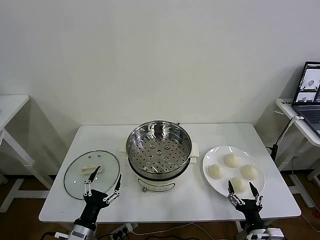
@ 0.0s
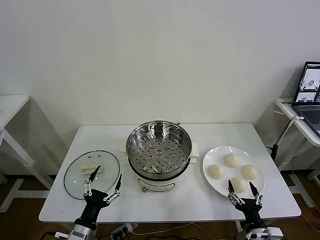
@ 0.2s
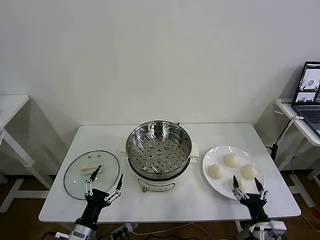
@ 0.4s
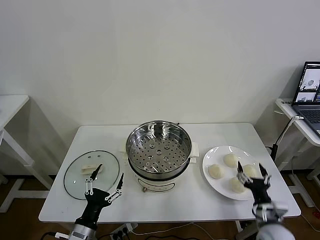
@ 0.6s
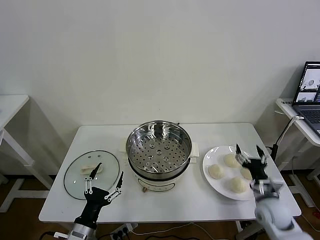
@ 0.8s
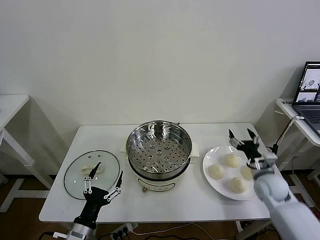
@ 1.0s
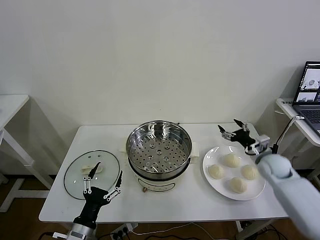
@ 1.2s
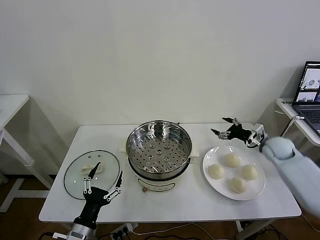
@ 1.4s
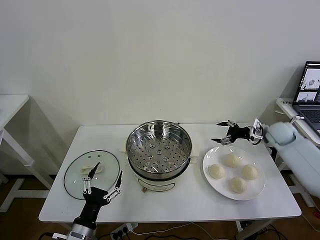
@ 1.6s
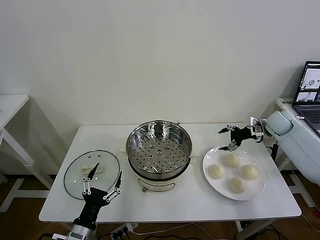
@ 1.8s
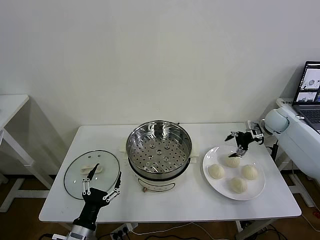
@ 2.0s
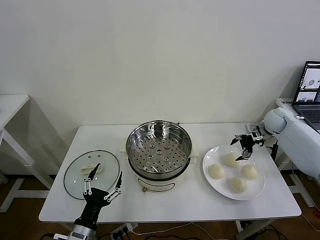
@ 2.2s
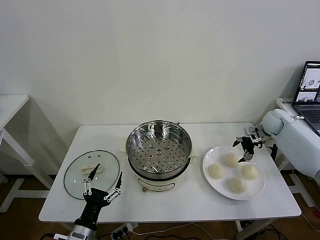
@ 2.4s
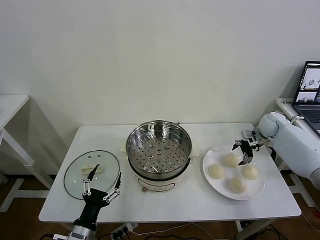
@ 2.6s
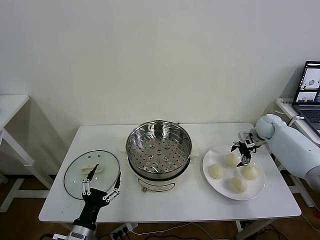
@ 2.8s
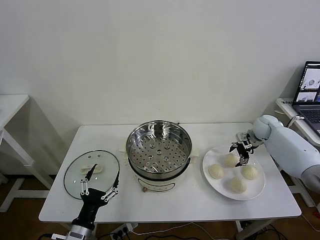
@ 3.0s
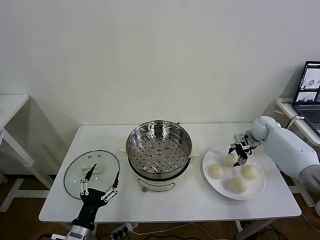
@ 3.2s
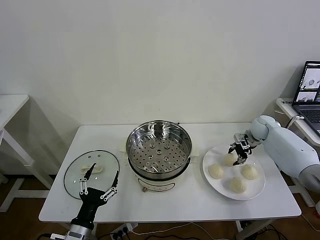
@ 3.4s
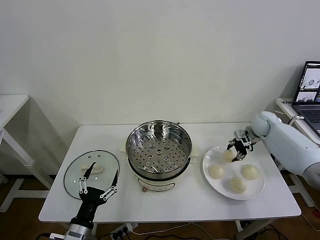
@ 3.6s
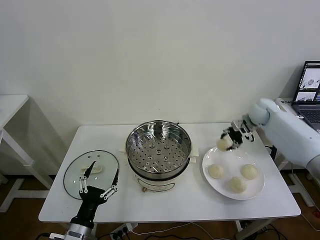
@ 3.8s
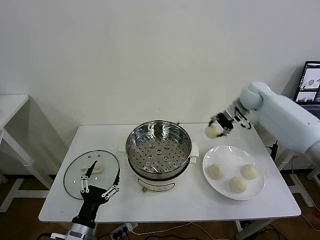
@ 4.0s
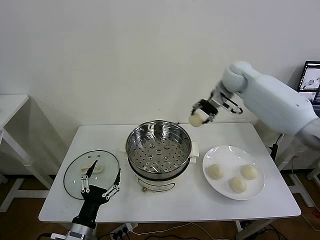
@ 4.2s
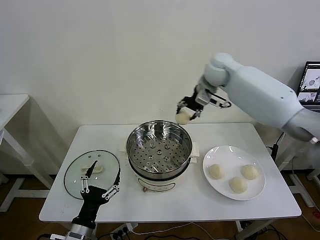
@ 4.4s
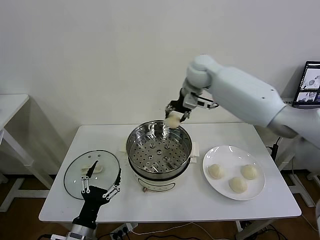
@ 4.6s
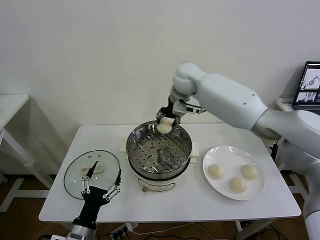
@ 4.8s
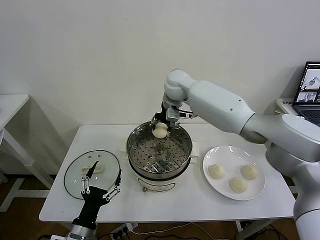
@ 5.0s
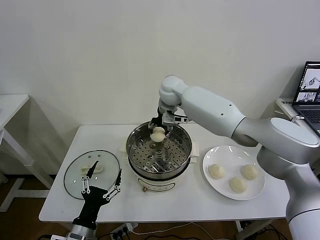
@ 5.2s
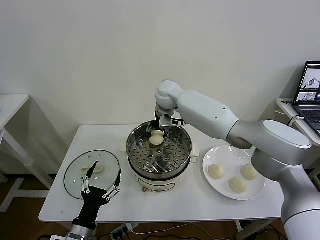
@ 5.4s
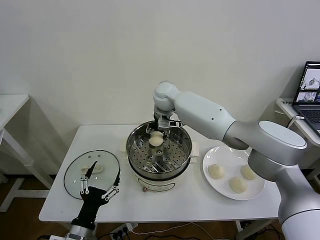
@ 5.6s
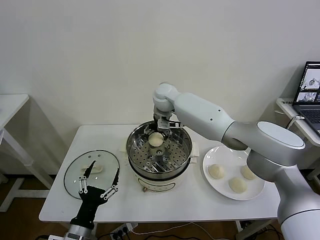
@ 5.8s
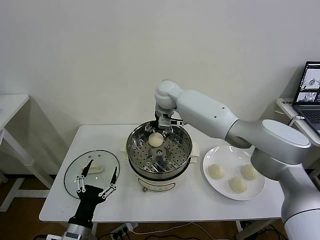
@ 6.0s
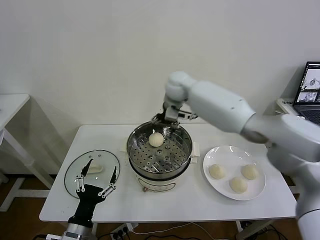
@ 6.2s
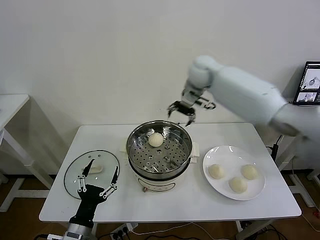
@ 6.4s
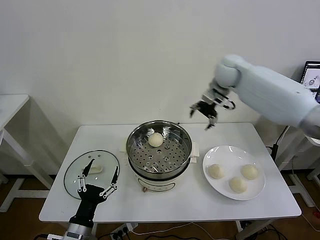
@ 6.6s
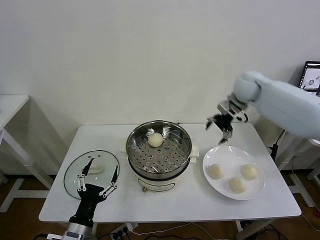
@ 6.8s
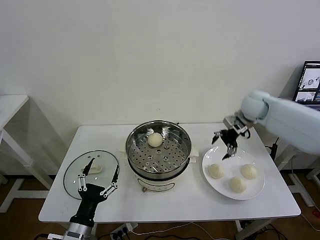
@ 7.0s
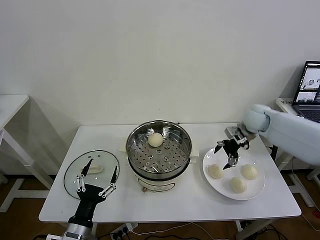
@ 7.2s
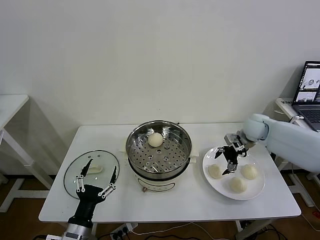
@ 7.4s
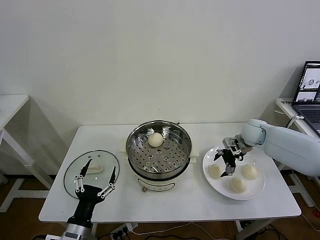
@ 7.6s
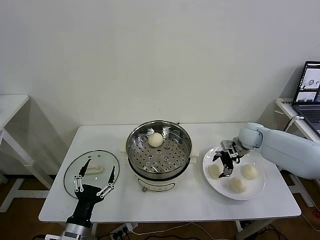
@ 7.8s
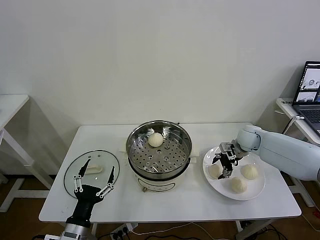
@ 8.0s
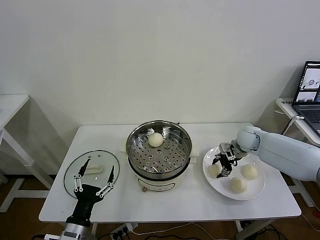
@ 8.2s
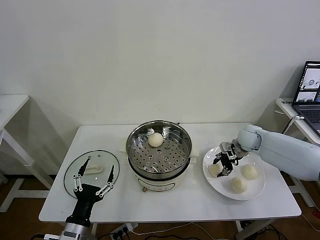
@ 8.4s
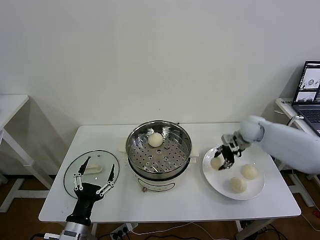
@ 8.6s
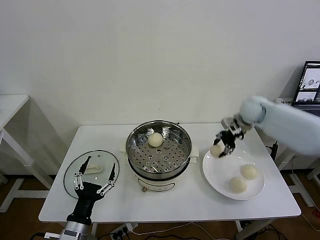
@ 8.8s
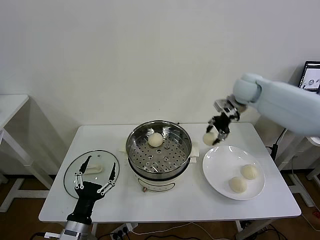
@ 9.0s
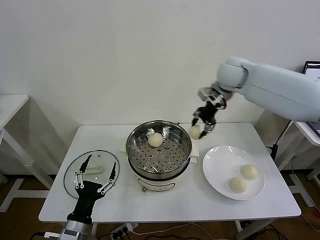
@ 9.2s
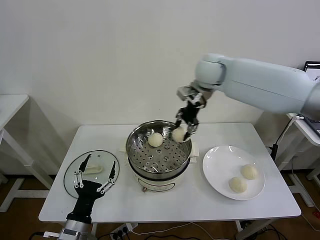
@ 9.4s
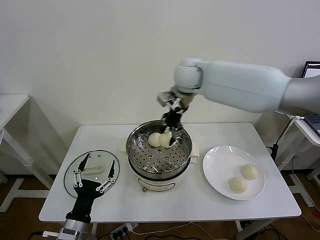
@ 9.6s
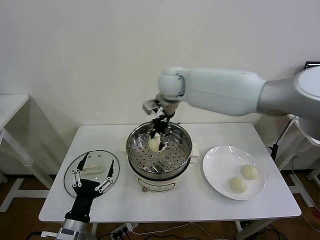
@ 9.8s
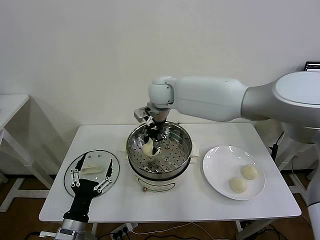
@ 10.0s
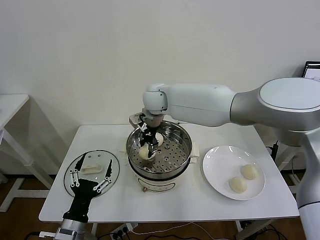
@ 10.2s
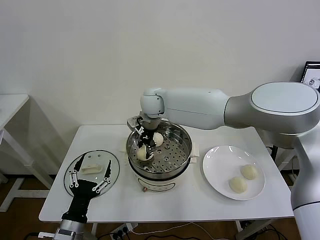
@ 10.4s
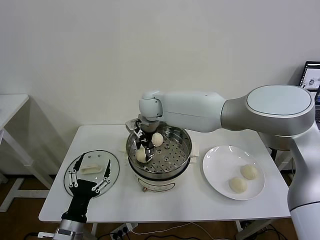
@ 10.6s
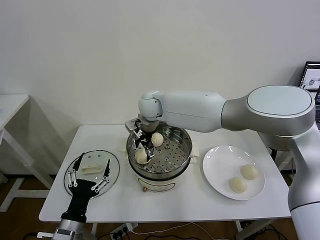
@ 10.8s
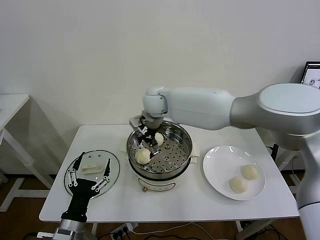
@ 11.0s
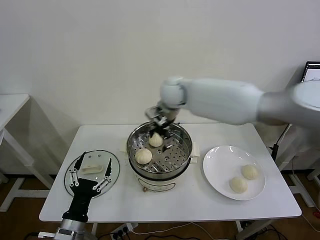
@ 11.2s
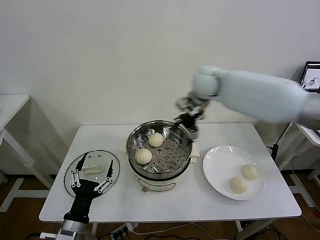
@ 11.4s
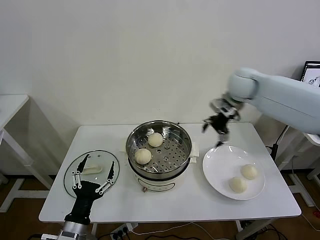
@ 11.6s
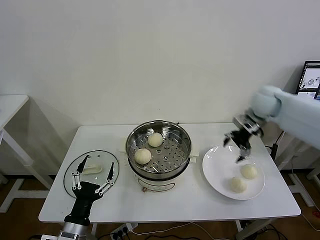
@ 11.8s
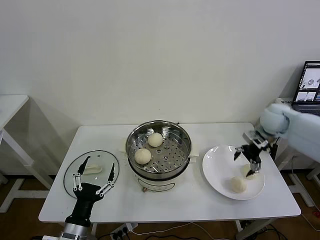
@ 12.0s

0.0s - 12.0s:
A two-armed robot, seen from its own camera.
Task of the whole recording: take steamed baozi put them in steamer then cover it.
Step, 0.0s - 3.2s: Grasp the baozi in the plate with right gripper.
Step, 3.4s - 5.8s: Place the baozi on the steamer with right gripper.
Step, 6.0s - 8.2s: Grasp the baozi in the plate with right gripper.
Step, 8.4s - 10.8s: Place the baozi on the steamer with right gripper.
1.6s - 3.0s: The right gripper changes place by some 5 cm.
3.0s - 4.4s: The right gripper travels to the left and upward by some 35 cm, and closes up.
4.4s - 6.0s: The right gripper shifts roughly 15 cm to the left and downward, and opens its fingers.
6.0s - 7.6s: The right gripper heads to the right and downward, covering roughly 35 cm.
7.6s - 9.0s: The right gripper heads upward and to the left, covering roughly 20 cm, and closes up.
9.0s - 10.4s: The right gripper goes roughly 30 cm to the left.
10.4s - 12.0s: The right gripper heads to the right, covering approximately 40 cm, and opens up.

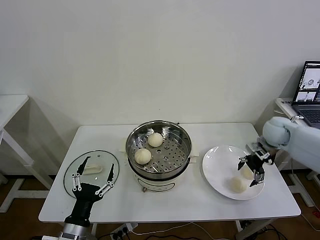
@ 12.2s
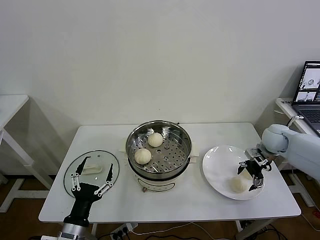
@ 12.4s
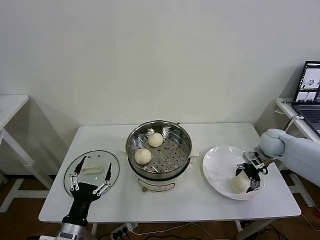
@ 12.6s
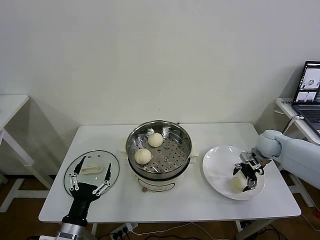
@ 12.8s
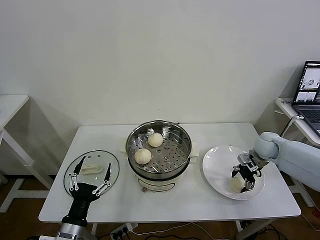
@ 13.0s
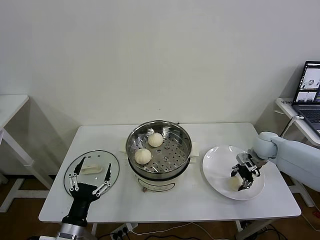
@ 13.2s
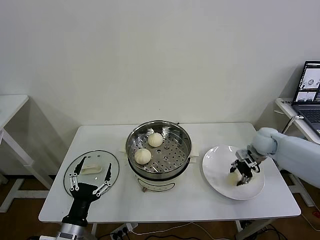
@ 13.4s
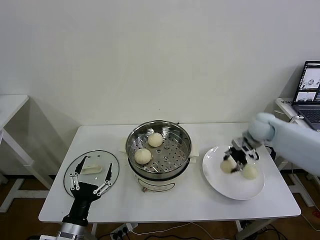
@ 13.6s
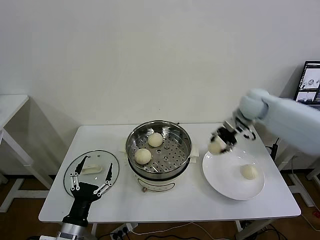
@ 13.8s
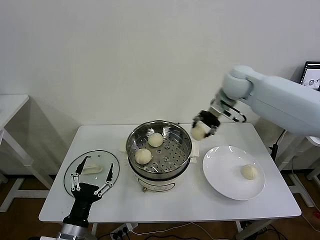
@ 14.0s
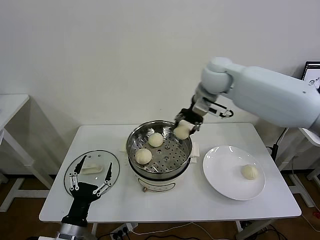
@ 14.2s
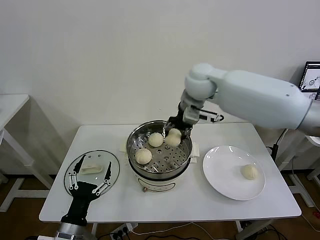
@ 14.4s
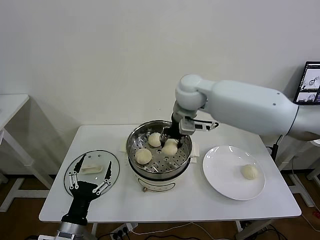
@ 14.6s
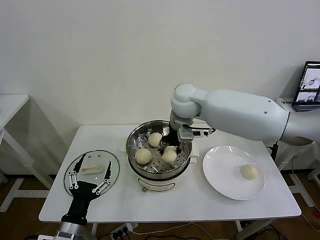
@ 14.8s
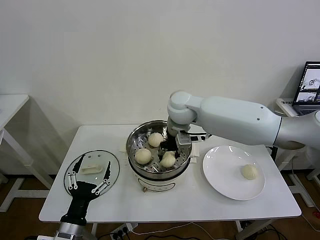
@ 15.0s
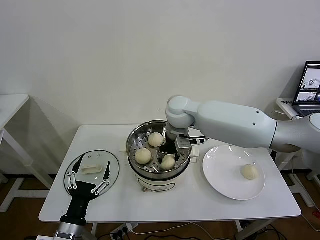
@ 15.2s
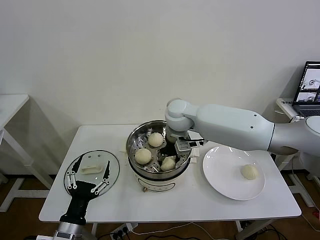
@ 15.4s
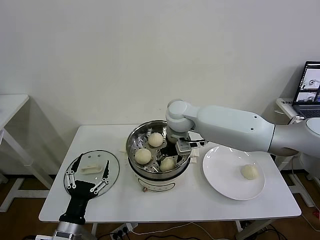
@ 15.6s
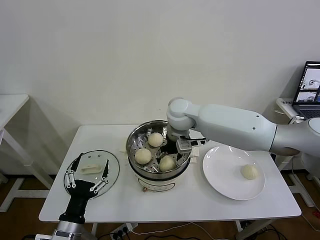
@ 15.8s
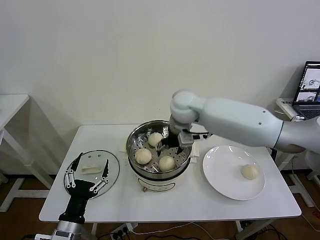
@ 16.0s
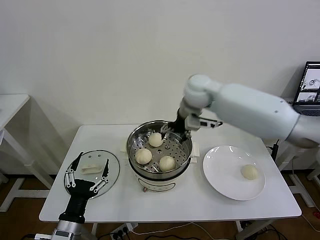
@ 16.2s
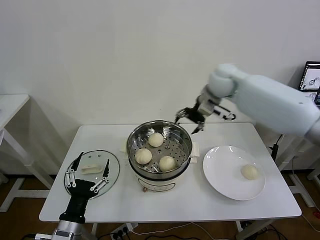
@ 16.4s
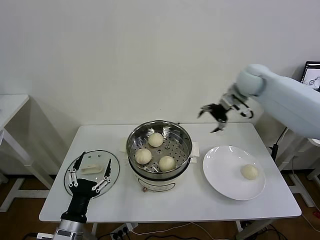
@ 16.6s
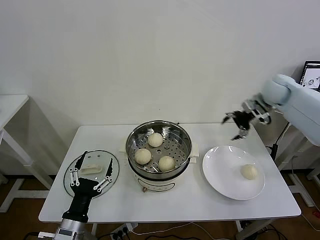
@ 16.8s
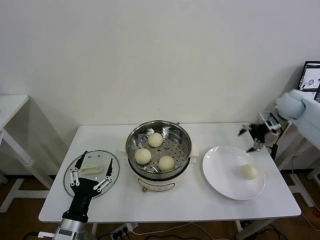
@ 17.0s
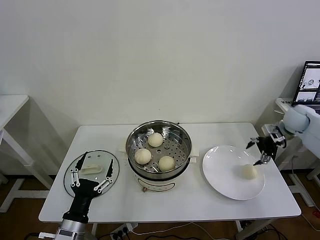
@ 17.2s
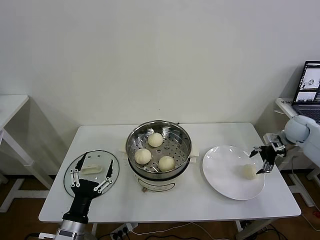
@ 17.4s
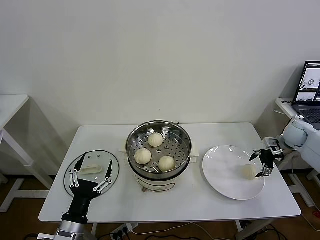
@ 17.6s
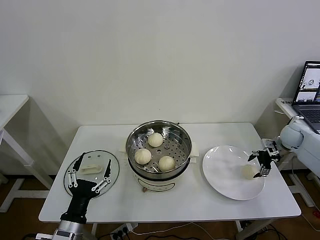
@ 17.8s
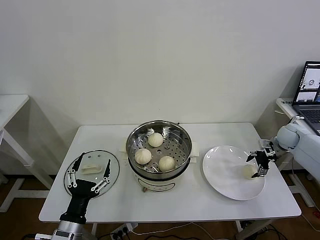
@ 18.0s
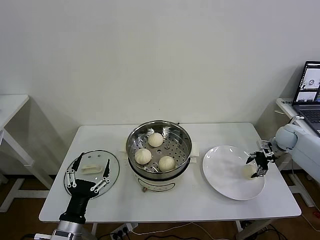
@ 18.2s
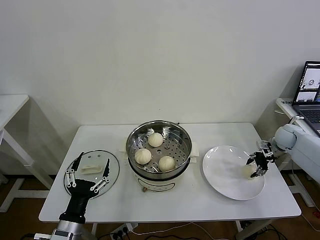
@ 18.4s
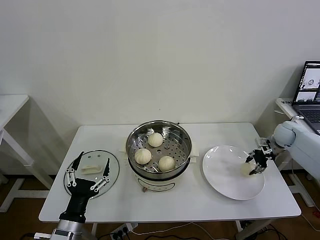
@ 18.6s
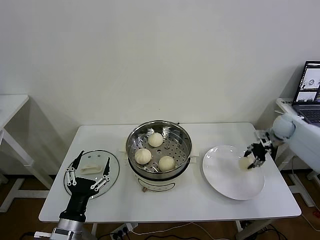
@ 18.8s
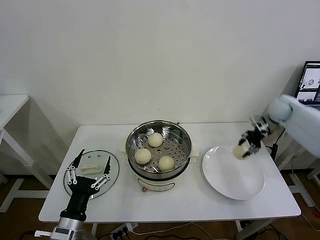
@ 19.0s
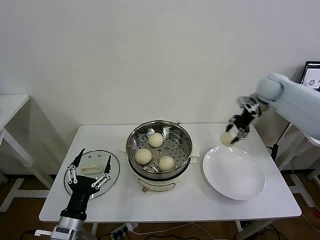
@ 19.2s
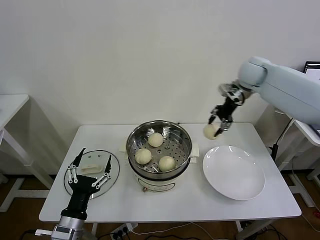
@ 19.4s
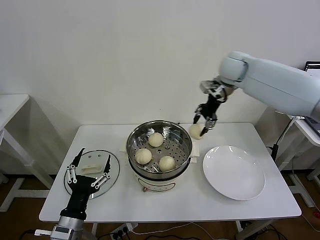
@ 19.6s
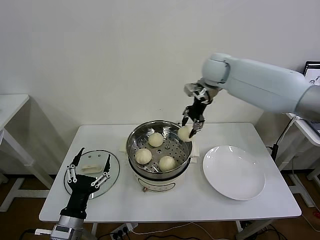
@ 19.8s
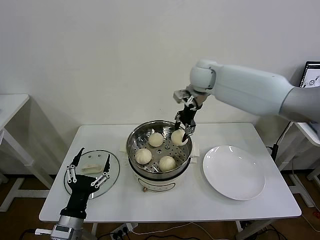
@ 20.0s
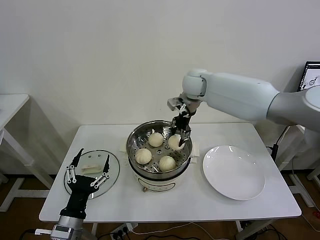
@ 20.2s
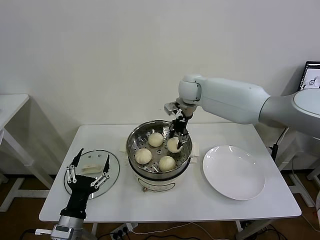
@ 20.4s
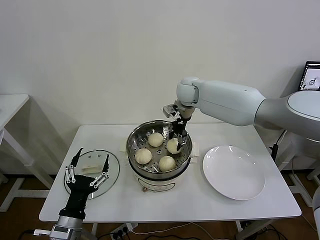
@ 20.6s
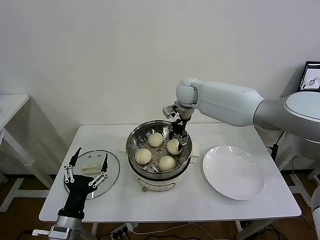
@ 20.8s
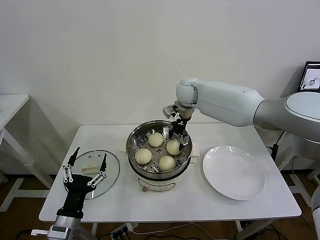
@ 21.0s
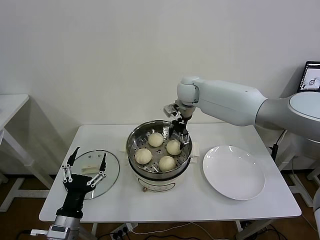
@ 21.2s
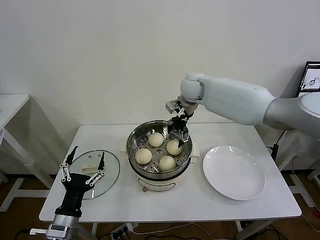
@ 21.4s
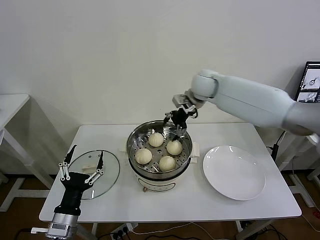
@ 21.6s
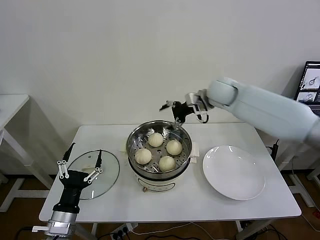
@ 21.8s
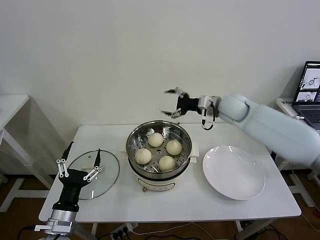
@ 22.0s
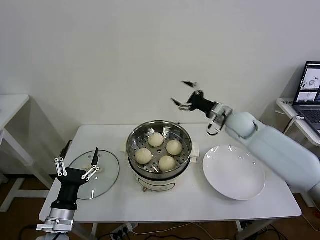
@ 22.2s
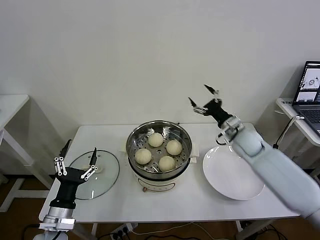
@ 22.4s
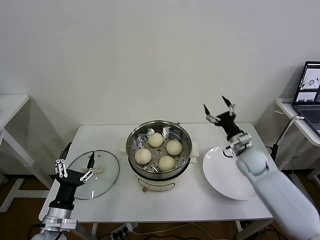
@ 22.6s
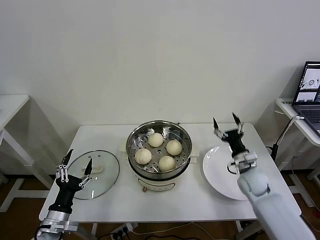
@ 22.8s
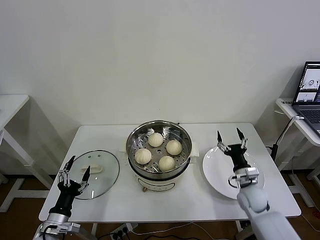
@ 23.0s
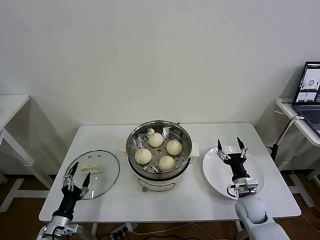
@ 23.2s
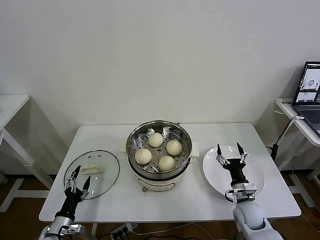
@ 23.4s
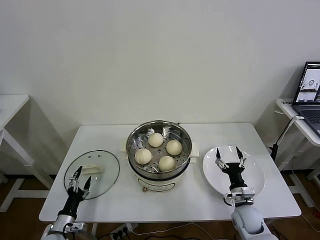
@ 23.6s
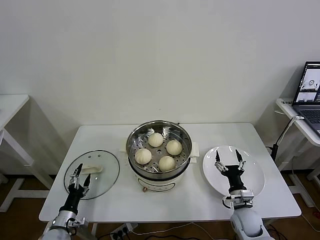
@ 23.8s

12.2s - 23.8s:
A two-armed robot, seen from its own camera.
Task of the whole recording: take steamed baozi put them in steamer then cover it.
Step, 13.4s - 15.6s: Place the baozi on the steamer with right gripper.
Step, 15.8s - 18.4s: Grasp the baozi in the plate with right gripper.
Step, 18.6s - 21.0s: Place the baozi on the steamer with right gripper.
12.2s - 13.6s: The right gripper heads to the left, covering about 5 cm, travels downward and back again, some 5 cm each way, and closes.
13.6s - 15.0s: The right gripper is displaced to the left by approximately 30 cm.
15.0s - 16.6s: The right gripper goes about 25 cm to the right, and opens up.
16.6s - 18.0s: The right gripper goes roughly 30 cm downward and to the right.
18.0s - 19.4s: The right gripper is displaced upward and to the left by approximately 30 cm, and closes up.
19.4s - 21.0s: The right gripper shifts about 20 cm to the left, and opens up.
21.0s - 22.4s: The right gripper is displaced to the right, downward and backward by some 30 cm.
22.4s - 23.8s: The left gripper moves downward and to the left, about 15 cm. The right gripper shifts about 30 cm downward and backward.
